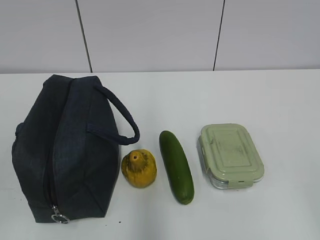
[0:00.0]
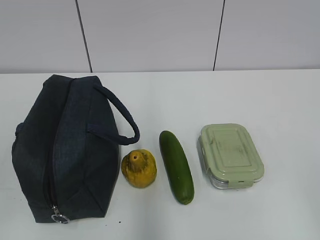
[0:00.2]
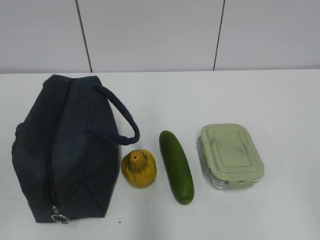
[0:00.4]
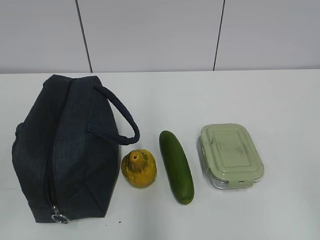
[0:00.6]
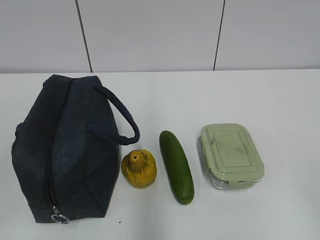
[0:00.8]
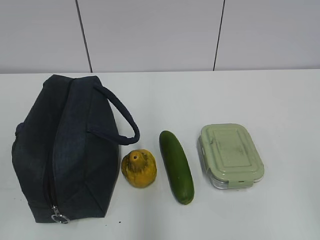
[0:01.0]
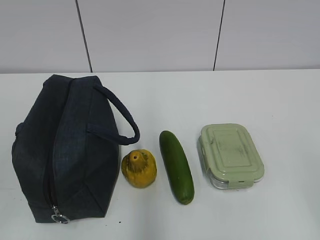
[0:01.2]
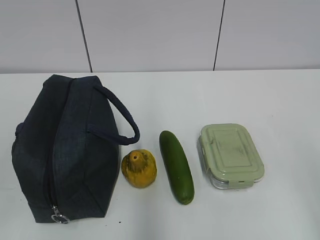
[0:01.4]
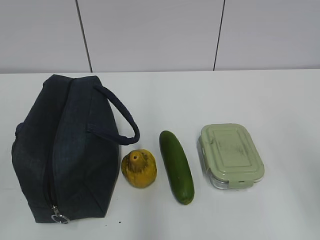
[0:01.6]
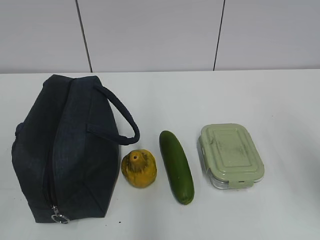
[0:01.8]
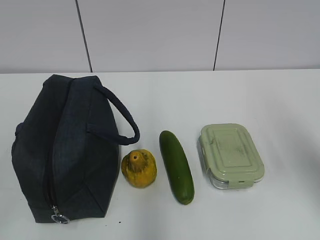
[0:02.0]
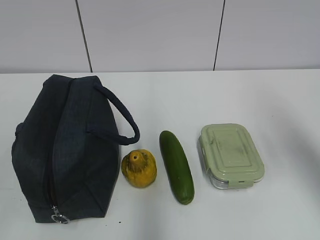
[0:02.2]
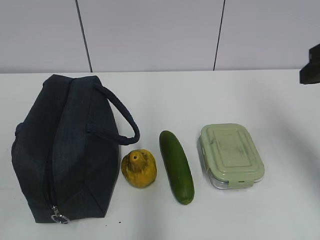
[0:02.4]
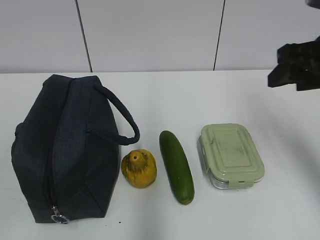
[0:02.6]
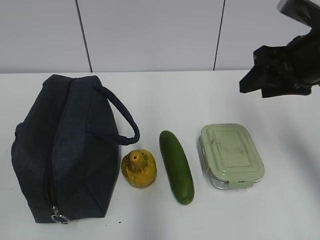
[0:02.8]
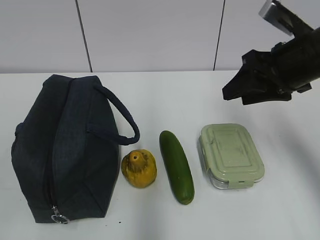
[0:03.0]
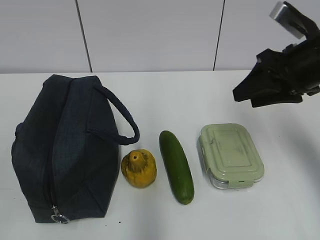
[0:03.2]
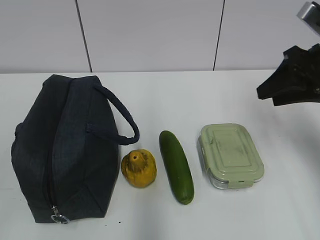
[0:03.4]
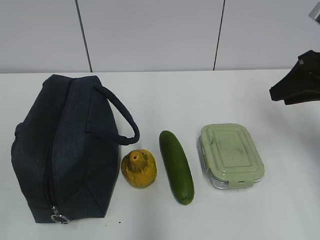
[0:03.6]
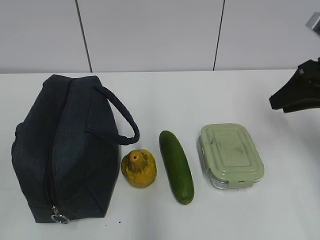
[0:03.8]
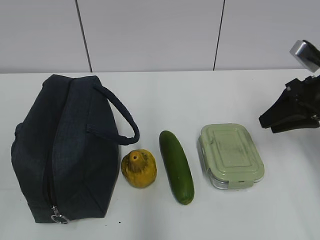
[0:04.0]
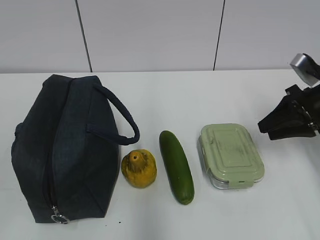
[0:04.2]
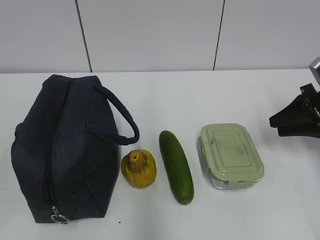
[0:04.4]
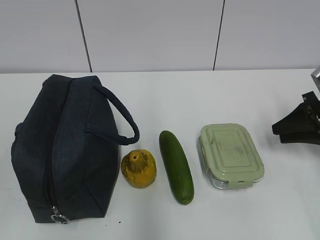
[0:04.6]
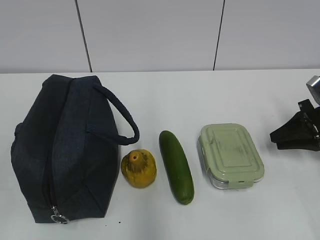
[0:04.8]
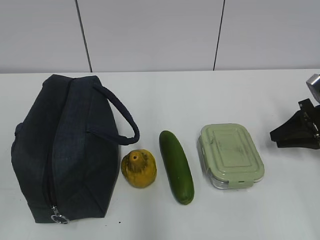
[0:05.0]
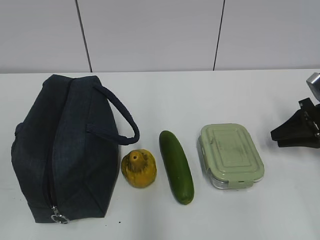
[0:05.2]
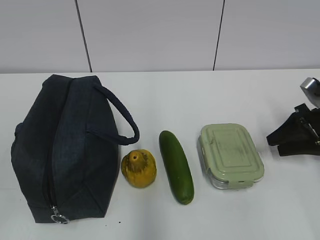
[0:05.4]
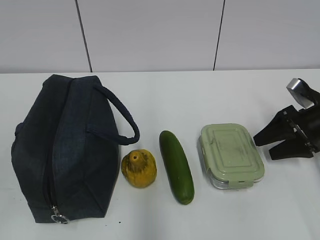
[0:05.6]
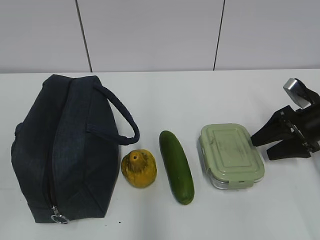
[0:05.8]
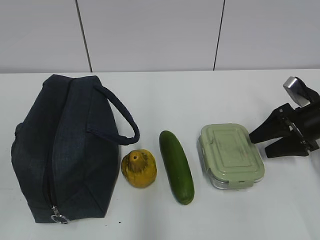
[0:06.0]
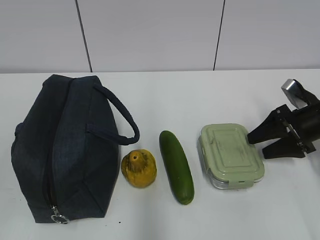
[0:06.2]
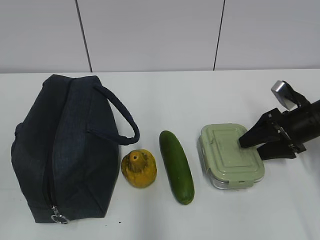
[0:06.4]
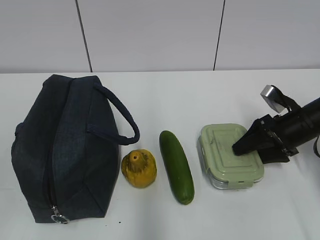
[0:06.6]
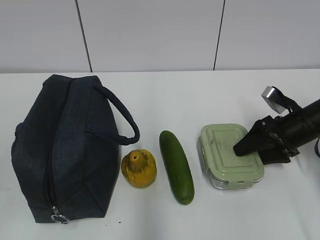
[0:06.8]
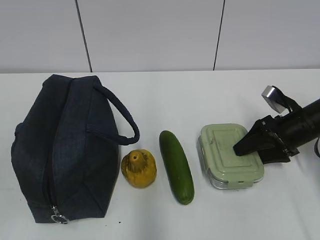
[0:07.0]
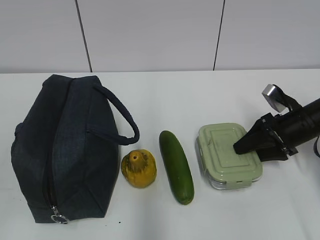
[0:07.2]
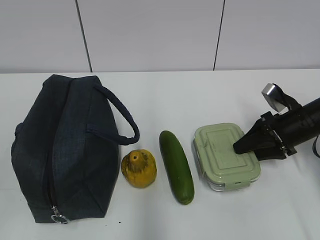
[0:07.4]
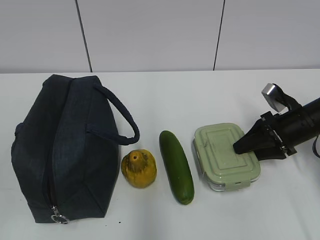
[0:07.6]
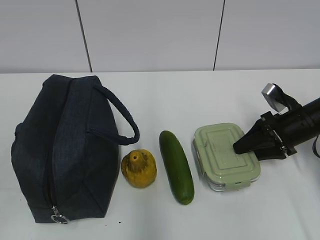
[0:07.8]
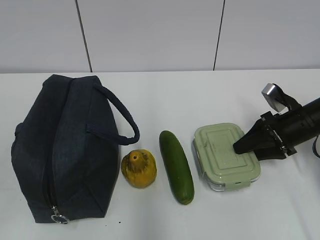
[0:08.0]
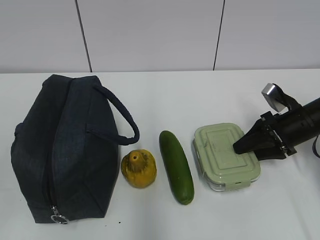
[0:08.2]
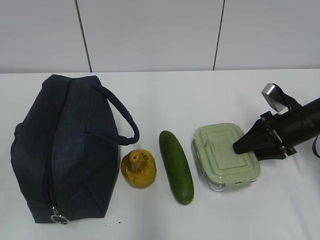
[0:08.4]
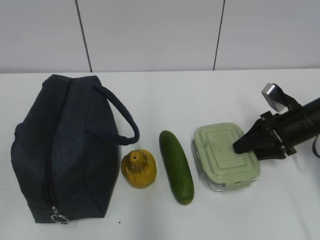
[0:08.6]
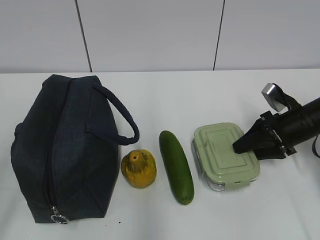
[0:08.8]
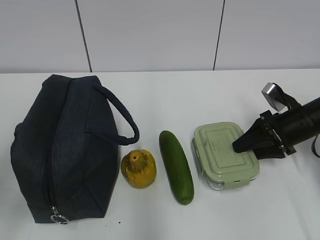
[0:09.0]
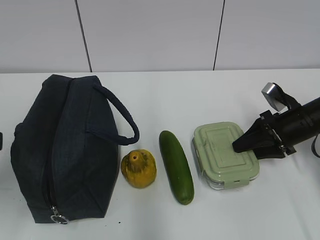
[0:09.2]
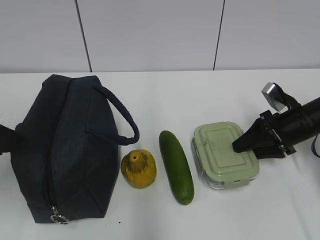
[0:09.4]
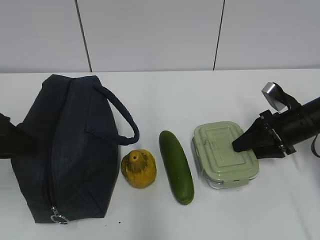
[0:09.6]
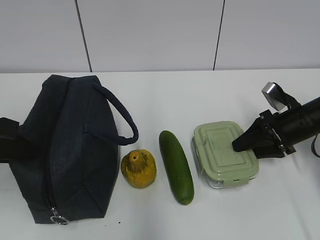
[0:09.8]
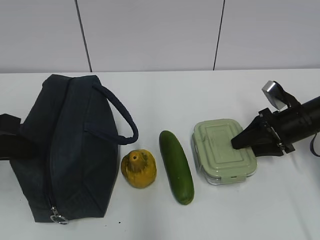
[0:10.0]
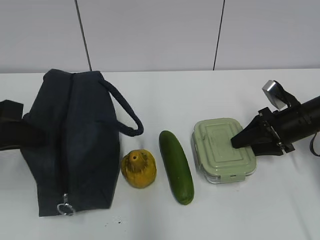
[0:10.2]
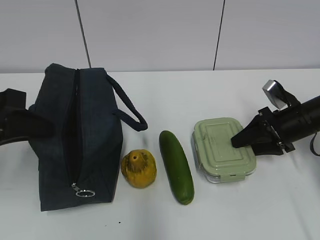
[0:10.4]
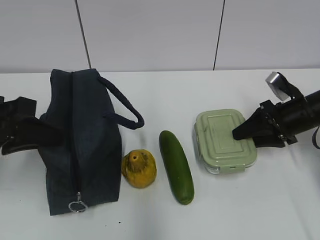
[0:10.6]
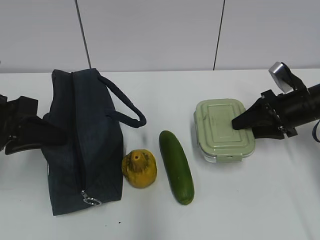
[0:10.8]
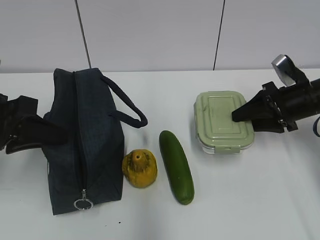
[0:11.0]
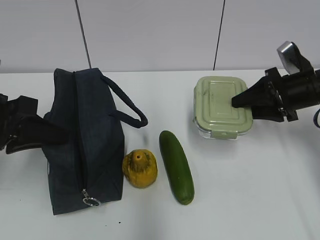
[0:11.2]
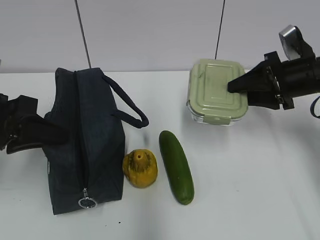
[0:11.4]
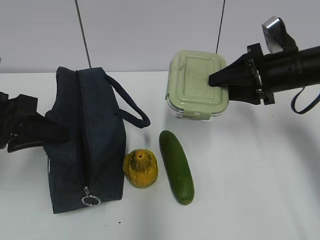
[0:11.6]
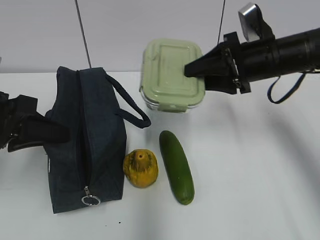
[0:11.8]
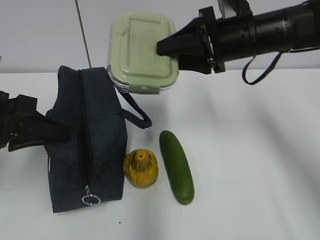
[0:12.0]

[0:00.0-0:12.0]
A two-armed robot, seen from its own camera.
0:01.6 to 0:03.0: The right gripper shifts about 20 cm forward.
0:03.0 to 0:04.4: The right gripper heads to the right and downward, covering about 15 cm.
0:04.4 to 0:06.0: The right gripper opens.
0:06.0 to 0:07.6: The grippers move only a little.
0:07.6 to 0:09.0: The left gripper goes some 10 cm forward.
0:09.0 to 0:10.4: The left gripper moves forward, approximately 10 cm, and closes.
0:10.4 to 0:12.0: The right gripper is displaced upward and to the left by about 20 cm.

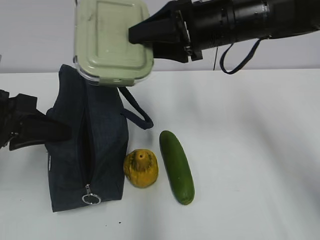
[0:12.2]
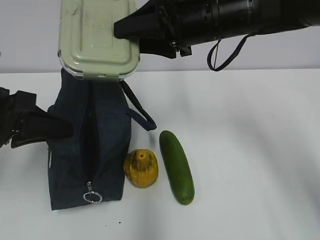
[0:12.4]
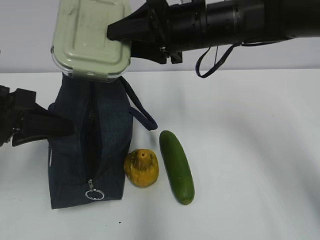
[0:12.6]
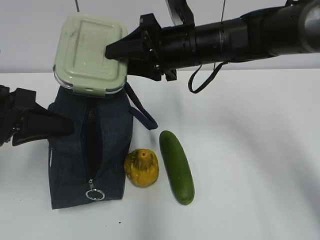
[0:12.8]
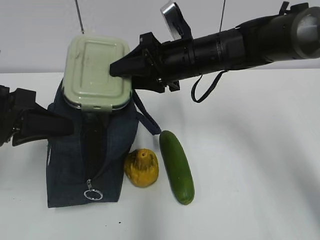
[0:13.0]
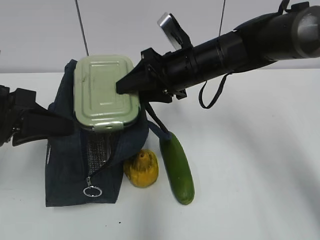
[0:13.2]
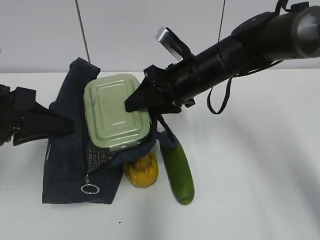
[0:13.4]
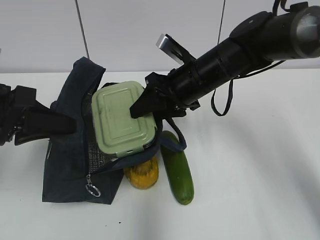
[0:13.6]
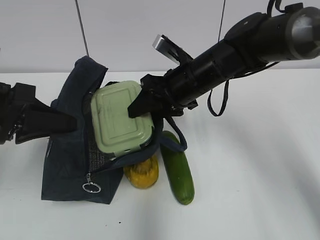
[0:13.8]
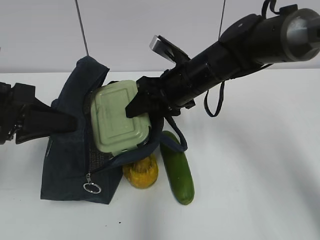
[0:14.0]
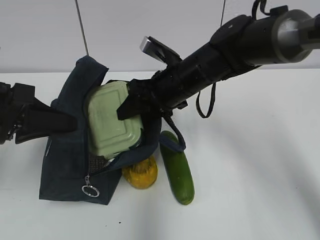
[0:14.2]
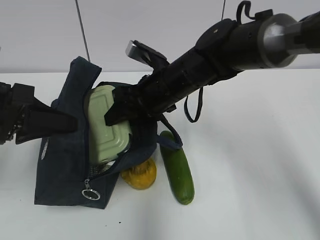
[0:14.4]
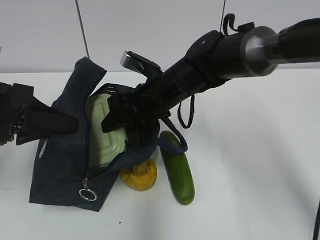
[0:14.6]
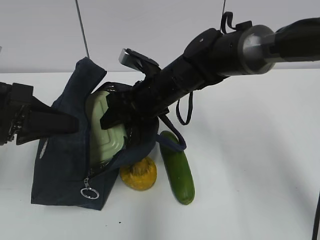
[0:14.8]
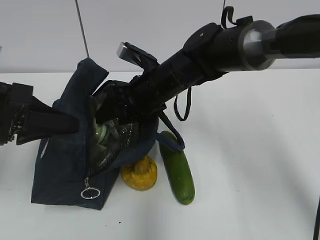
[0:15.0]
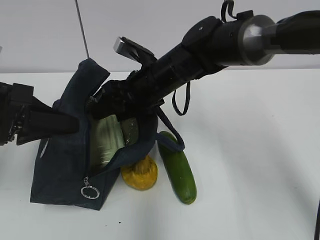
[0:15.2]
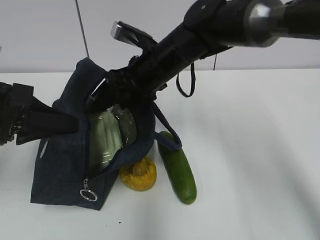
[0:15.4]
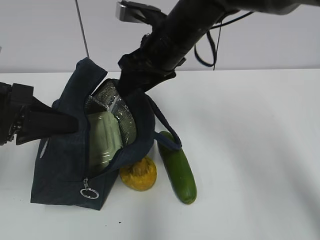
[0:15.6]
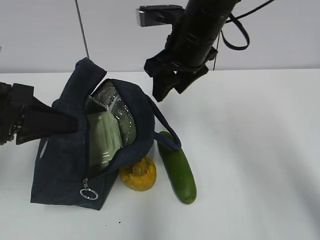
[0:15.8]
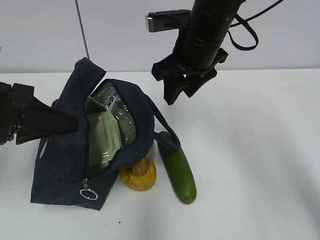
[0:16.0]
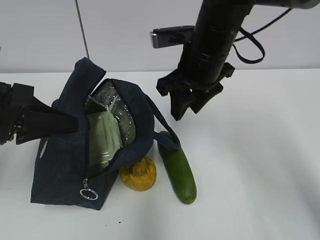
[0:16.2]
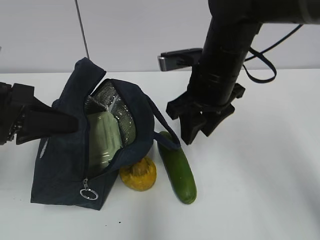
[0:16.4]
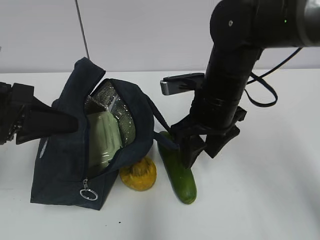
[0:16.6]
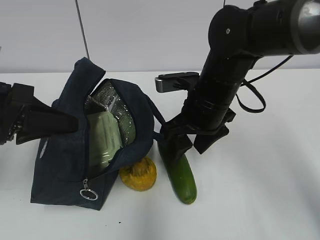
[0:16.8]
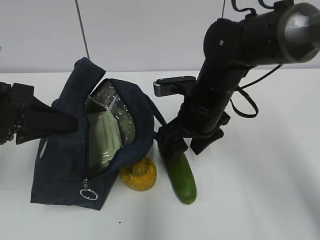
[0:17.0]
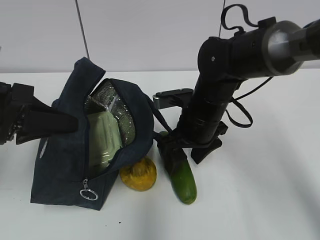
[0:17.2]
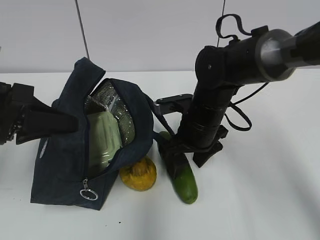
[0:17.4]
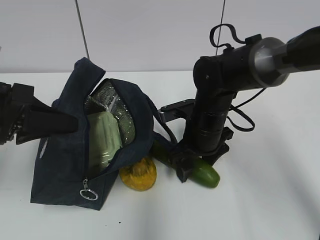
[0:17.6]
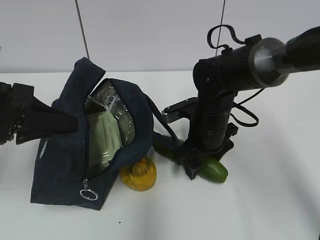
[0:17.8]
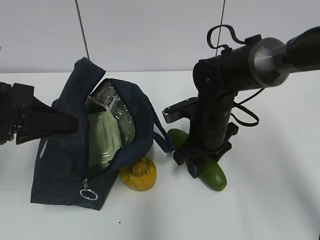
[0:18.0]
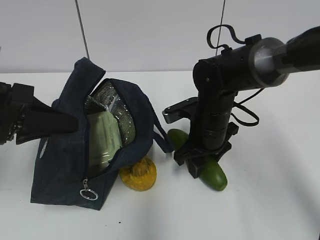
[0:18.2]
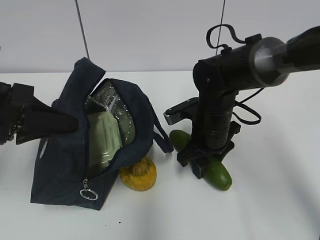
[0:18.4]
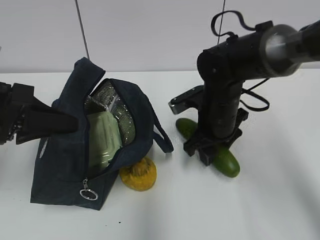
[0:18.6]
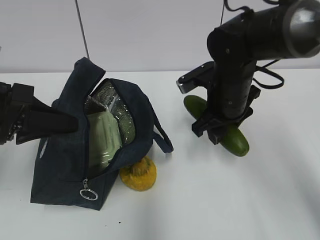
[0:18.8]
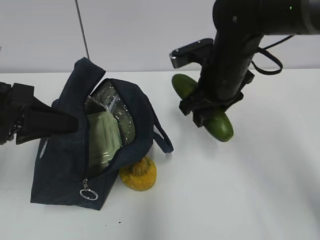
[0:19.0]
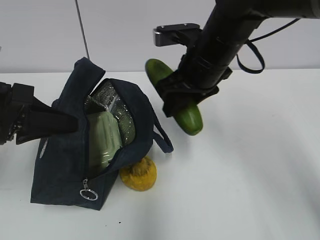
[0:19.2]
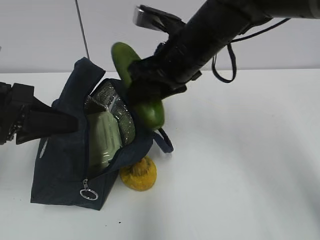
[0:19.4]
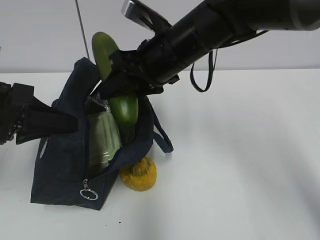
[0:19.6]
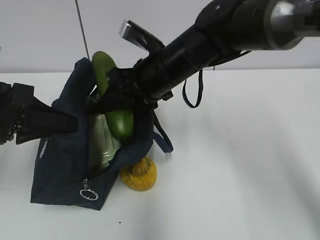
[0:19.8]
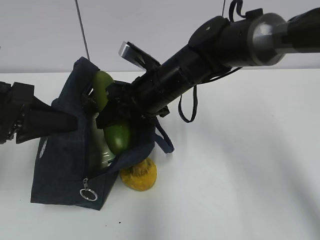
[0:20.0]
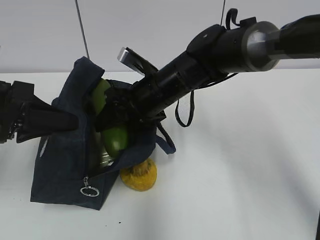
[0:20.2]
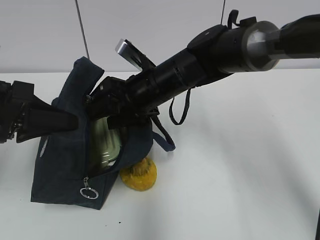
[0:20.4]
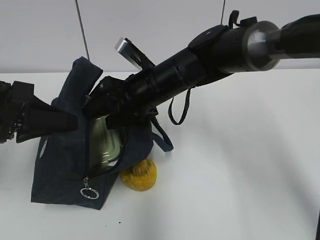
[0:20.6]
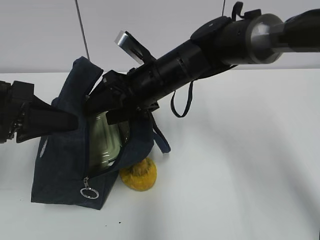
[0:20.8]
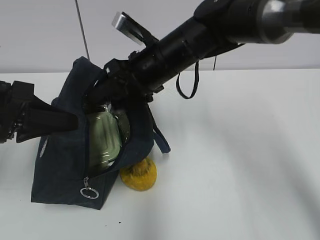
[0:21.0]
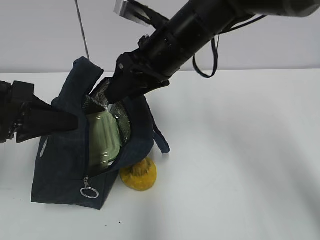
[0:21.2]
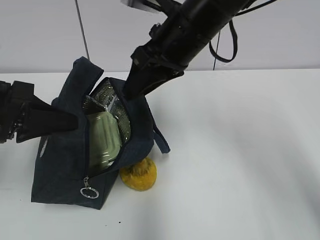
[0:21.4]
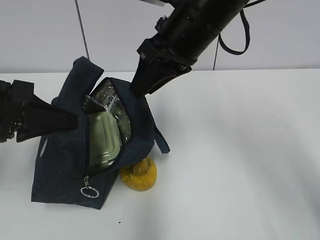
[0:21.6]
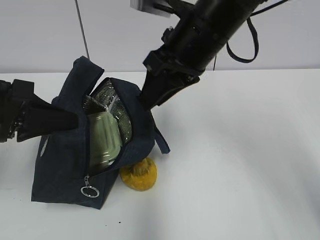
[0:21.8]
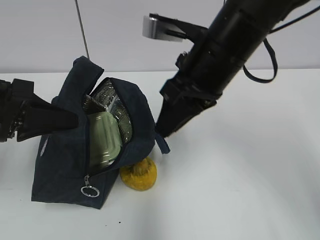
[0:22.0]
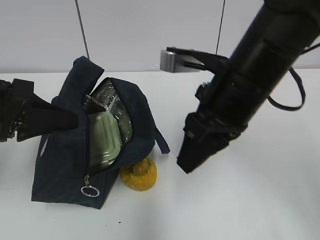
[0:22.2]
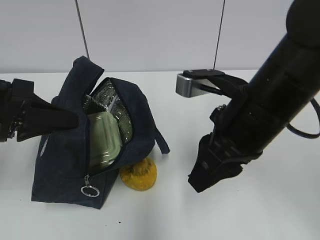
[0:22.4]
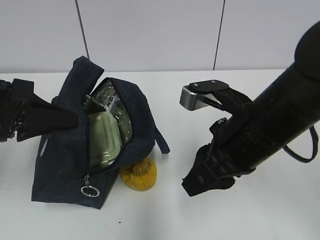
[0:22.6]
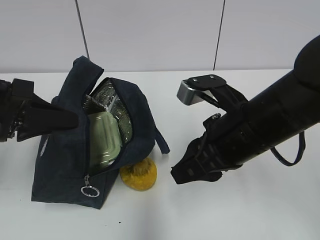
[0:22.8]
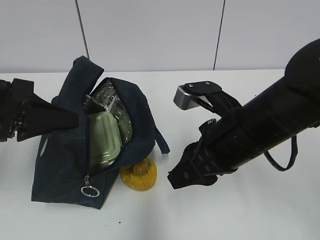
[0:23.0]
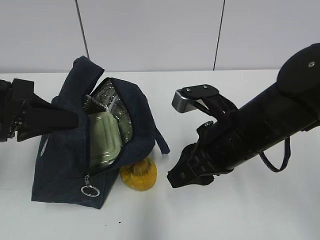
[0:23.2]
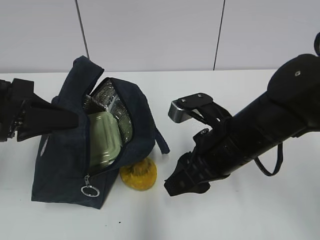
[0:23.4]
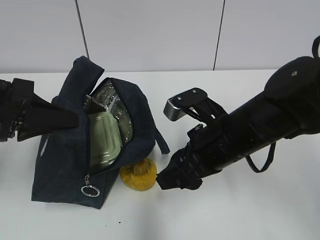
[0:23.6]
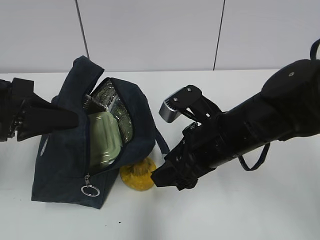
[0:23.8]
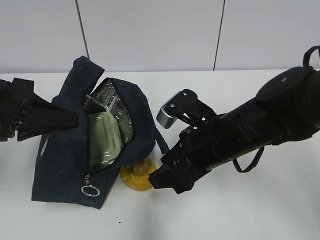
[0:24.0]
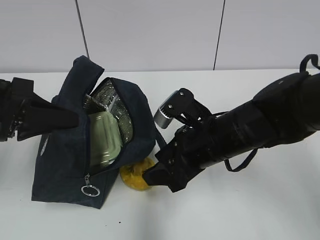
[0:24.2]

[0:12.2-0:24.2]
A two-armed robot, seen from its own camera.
0:12.2 to 0:13.8: The right gripper shifts about 10 cm downward.
0:13.8 to 0:15.2: The right gripper heads to the left, covering some 5 cm.
0:15.2 to 0:16.6: The right gripper goes roughly 10 cm to the right and backward.
0:16.6 to 0:18.2: The right gripper shifts roughly 10 cm downward.
0:18.2 to 0:19.8: The right gripper goes some 10 cm upward and to the left.
0:19.8 to 0:21.2: The right gripper travels upward by roughly 5 cm.
0:21.2 to 0:22.6: The right gripper moves backward, to the right and downward, some 15 cm, and closes up.
0:22.6 to 0:24.2: The right gripper shifts approximately 5 cm downward, and opens.
